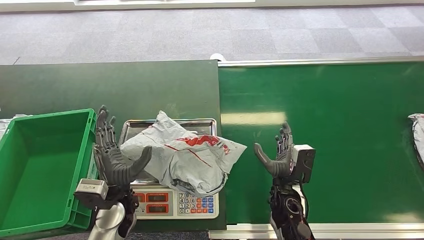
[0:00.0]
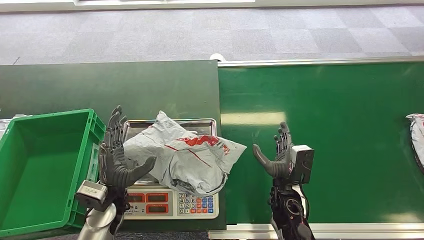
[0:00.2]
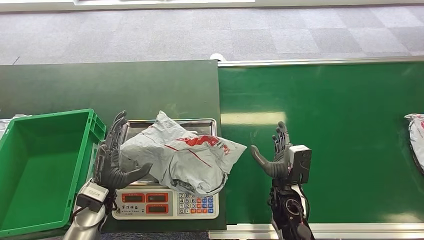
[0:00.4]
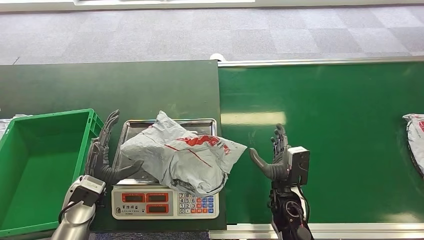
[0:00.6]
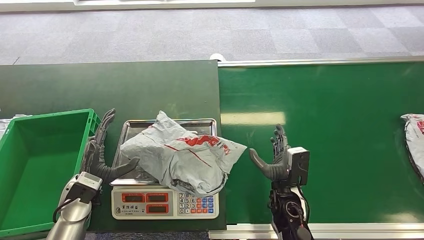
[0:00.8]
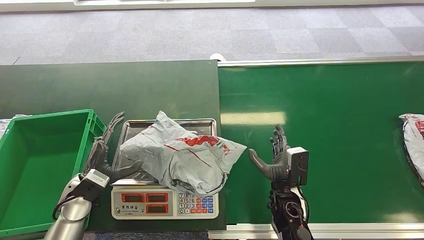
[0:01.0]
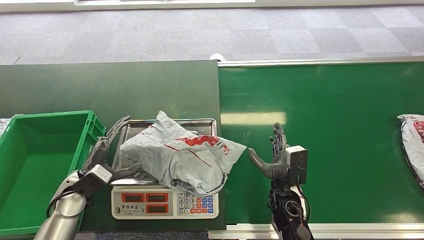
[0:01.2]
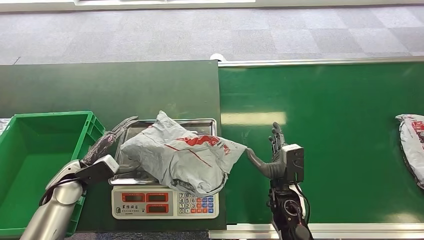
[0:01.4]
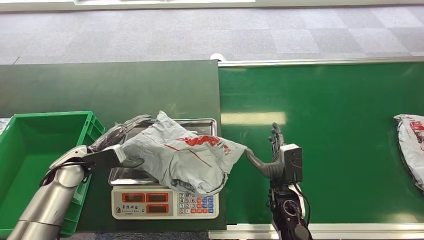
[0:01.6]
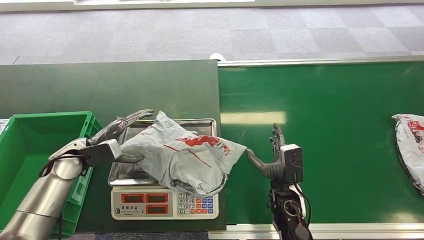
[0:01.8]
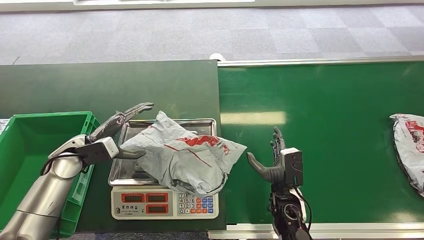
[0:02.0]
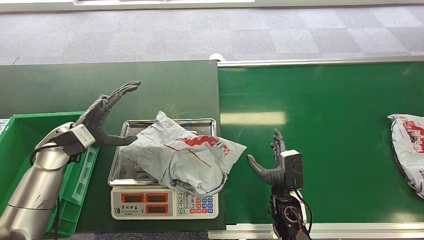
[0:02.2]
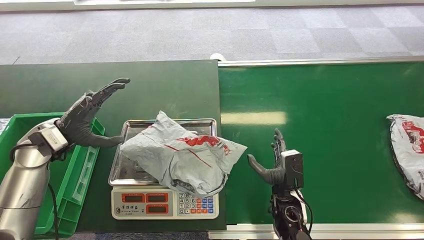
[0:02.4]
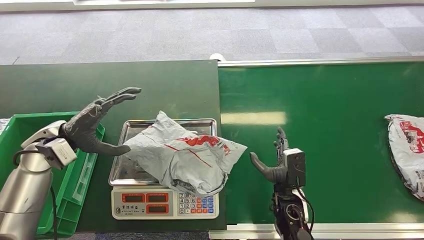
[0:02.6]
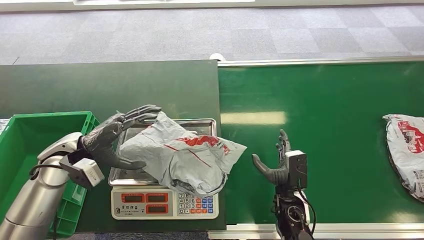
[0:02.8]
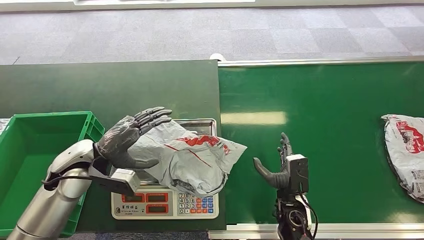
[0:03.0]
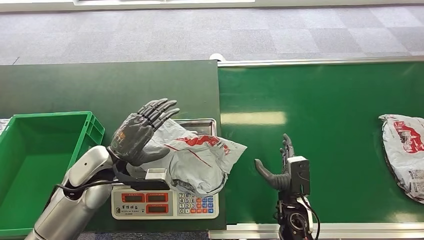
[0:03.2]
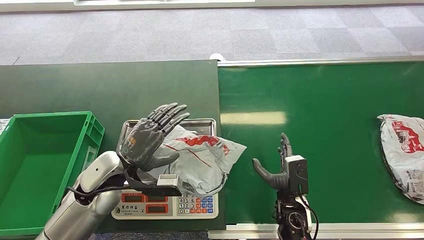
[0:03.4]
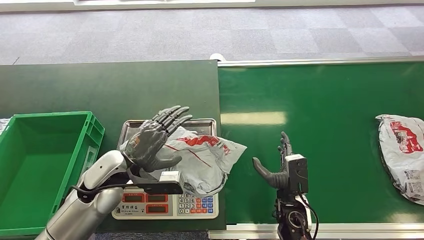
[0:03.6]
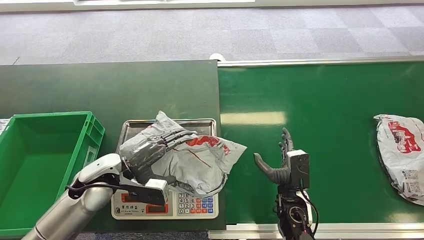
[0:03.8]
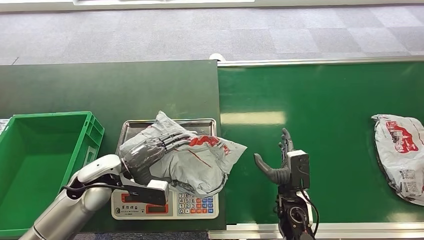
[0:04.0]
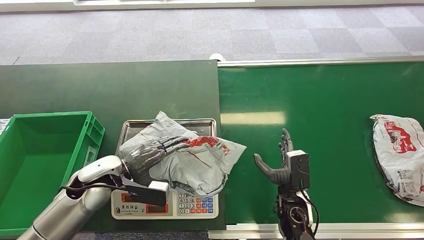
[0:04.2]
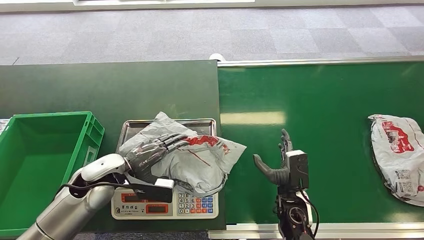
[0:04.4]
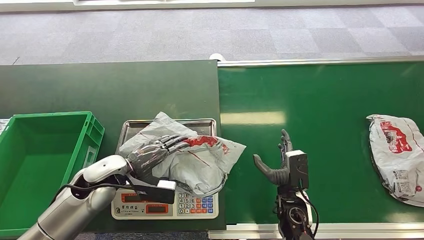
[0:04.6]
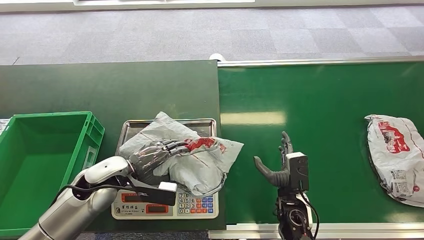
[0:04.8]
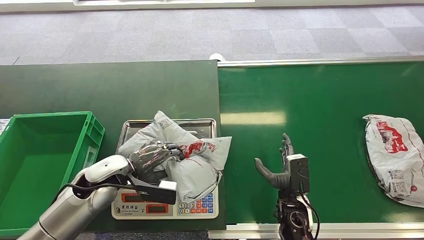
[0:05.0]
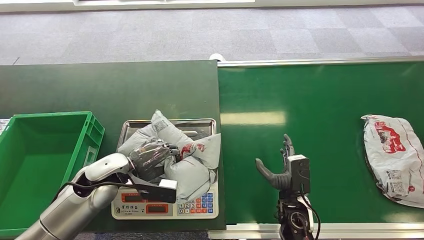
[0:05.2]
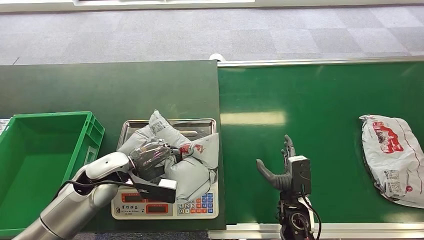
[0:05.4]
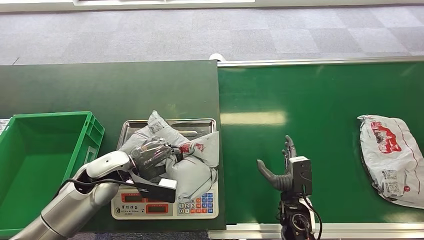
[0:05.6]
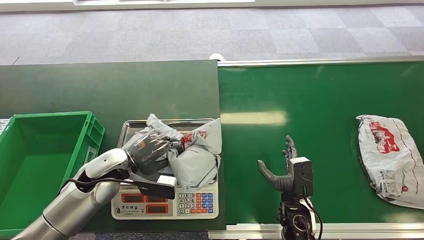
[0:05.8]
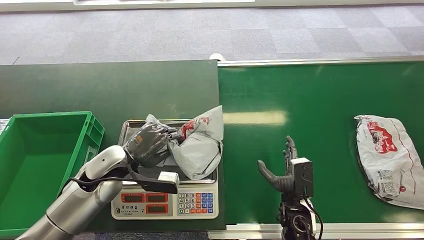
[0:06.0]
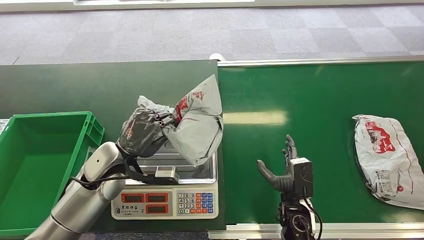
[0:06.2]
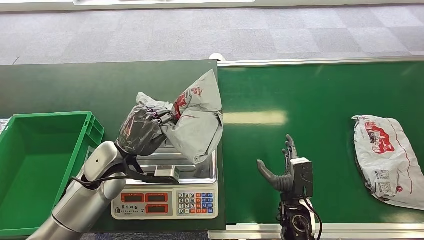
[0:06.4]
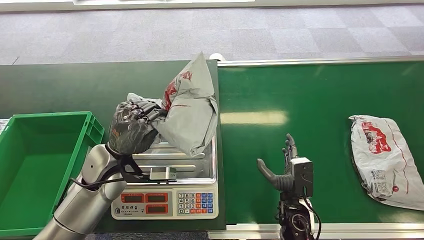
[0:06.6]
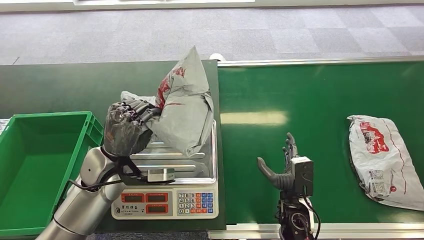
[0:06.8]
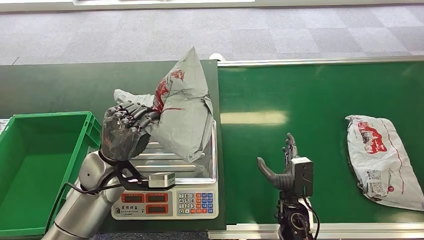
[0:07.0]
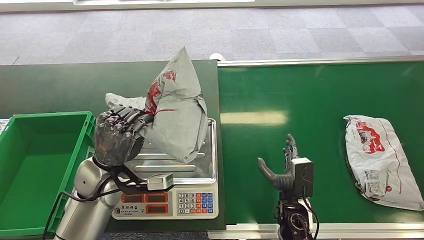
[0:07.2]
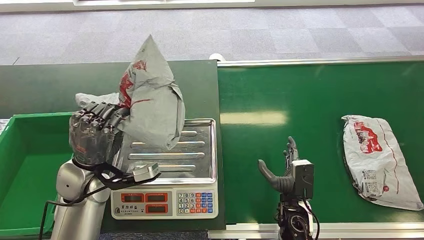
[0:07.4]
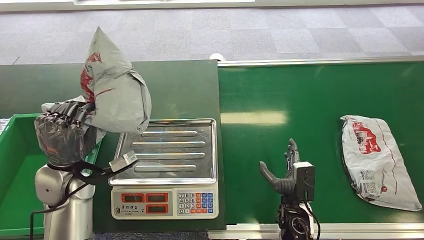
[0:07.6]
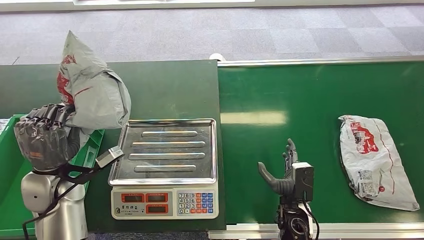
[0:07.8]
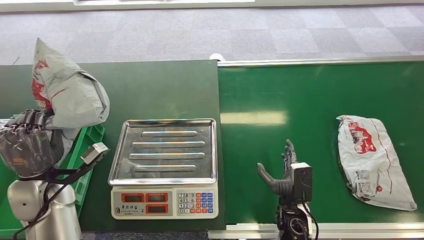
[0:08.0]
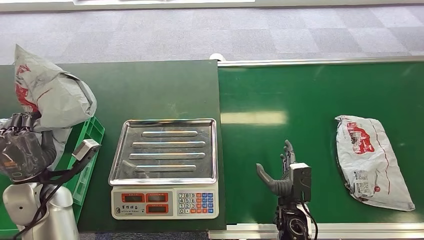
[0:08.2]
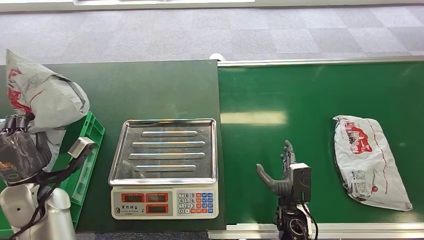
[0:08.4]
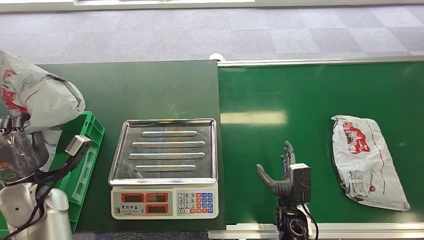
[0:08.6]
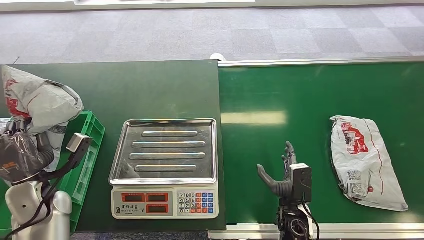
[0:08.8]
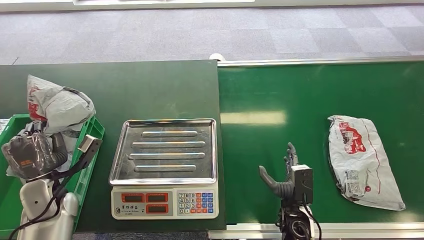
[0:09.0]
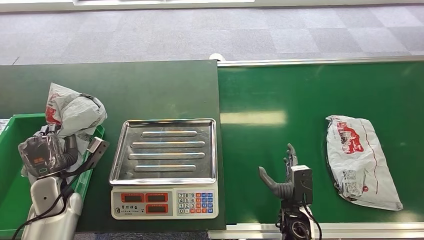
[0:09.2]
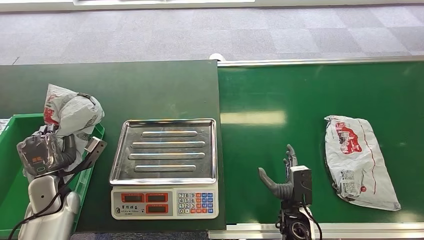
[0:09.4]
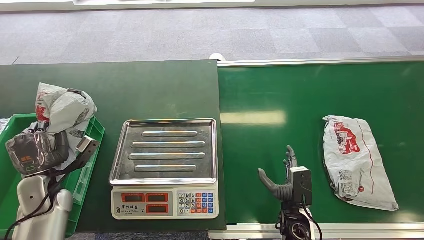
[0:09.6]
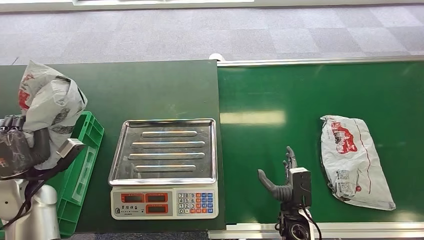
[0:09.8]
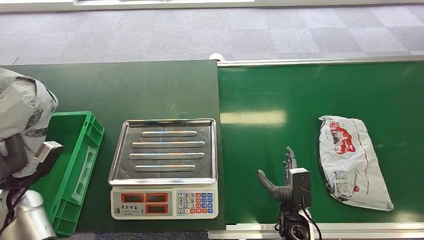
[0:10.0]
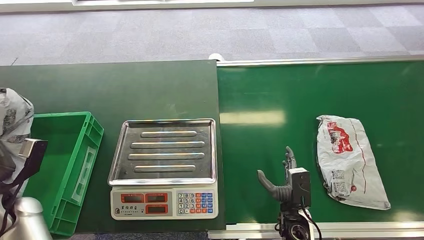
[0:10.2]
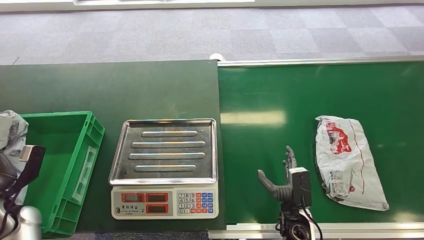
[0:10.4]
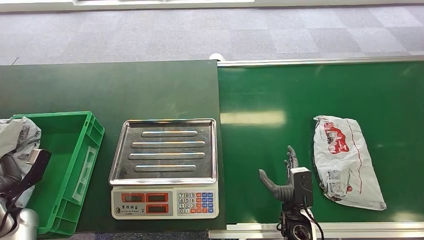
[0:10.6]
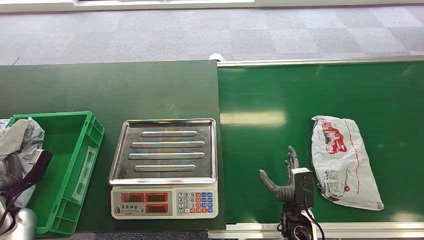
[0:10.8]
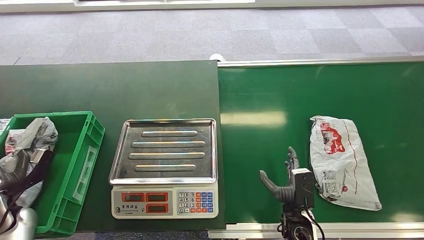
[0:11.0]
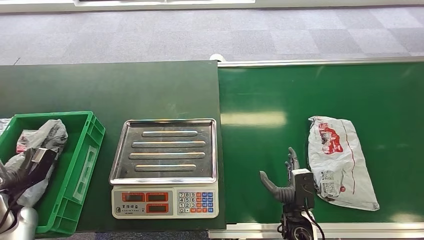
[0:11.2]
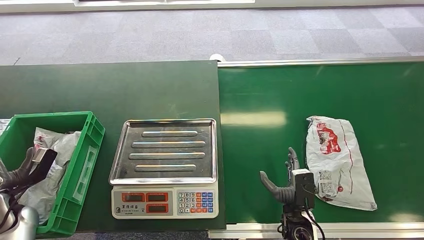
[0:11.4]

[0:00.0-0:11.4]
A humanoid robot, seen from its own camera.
Step, 0:05.4 to 0:07.6: Pick up the package from the inbound machine.
Step, 0:08.8 to 0:11.4: Place the package into the parcel locker.
0:00.0 to 0:01.4: The left hand is displaced to the left by approximately 15 cm.
0:01.4 to 0:02.8: The left hand heads upward, covering approximately 10 cm.
0:02.8 to 0:04.2: The left hand is displaced to the right and downward by roughly 10 cm.
0:04.2 to 0:05.6: The hands stay close to where they were, moving slightly.
0:08.6 to 0:10.0: The left hand moves to the left, roughly 5 cm.
0:10.0 to 0:11.4: The left hand travels downward and to the left by some 10 cm.
